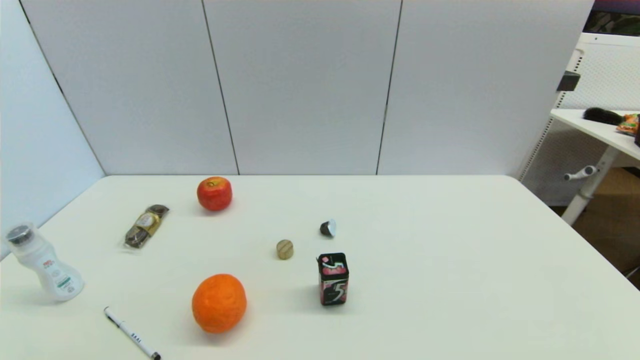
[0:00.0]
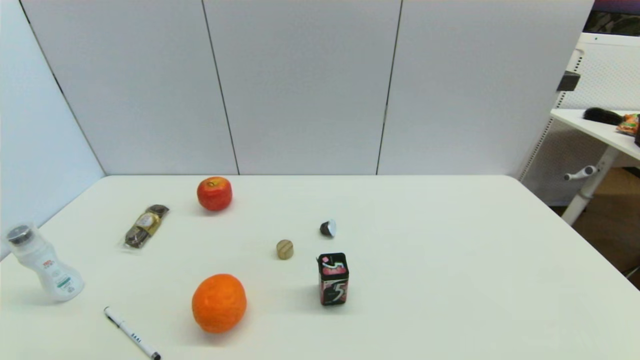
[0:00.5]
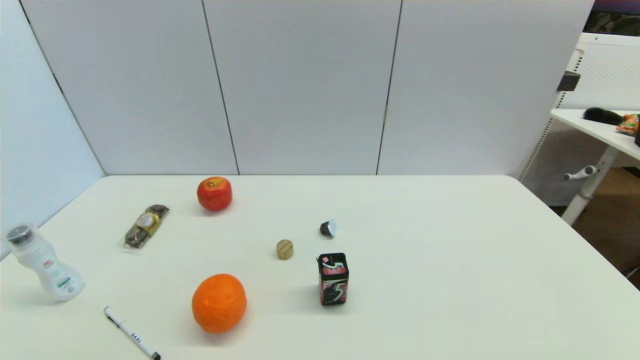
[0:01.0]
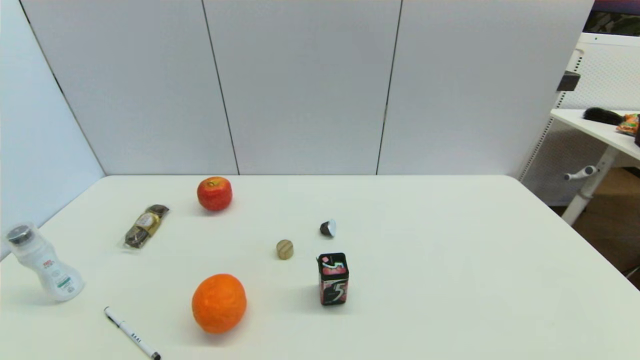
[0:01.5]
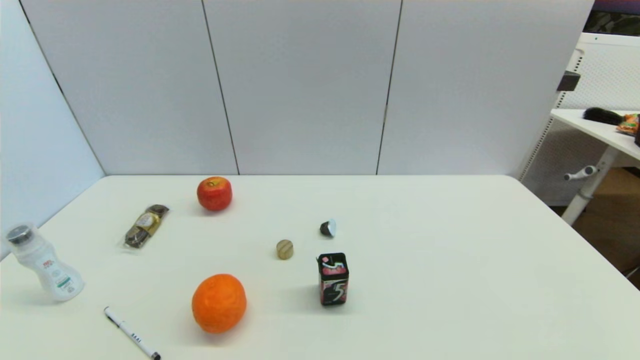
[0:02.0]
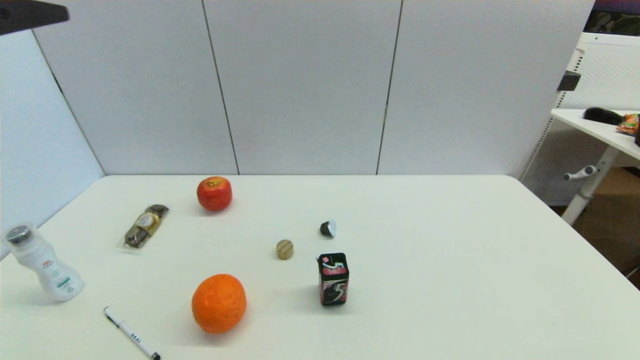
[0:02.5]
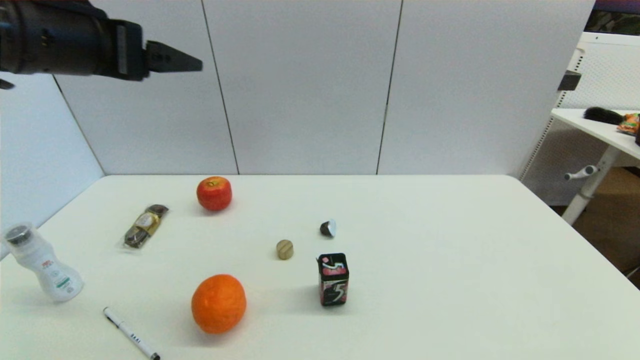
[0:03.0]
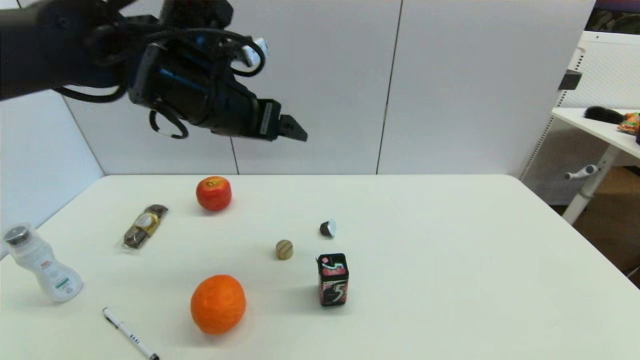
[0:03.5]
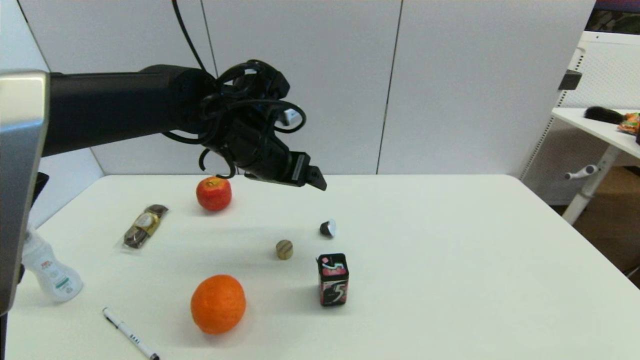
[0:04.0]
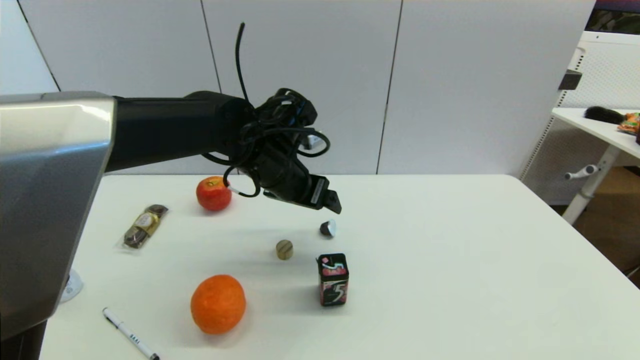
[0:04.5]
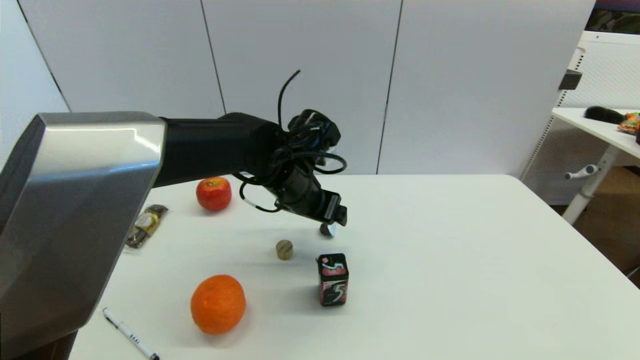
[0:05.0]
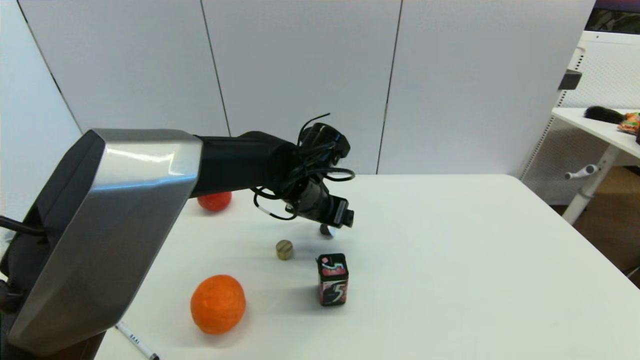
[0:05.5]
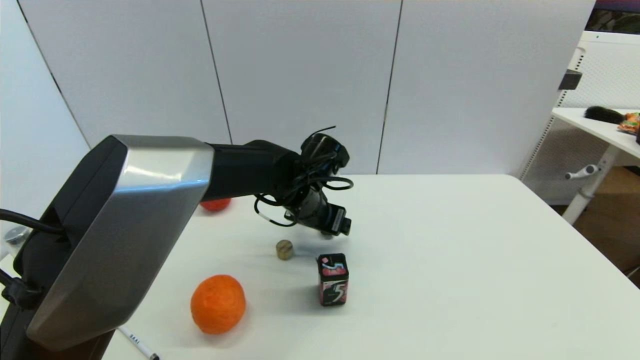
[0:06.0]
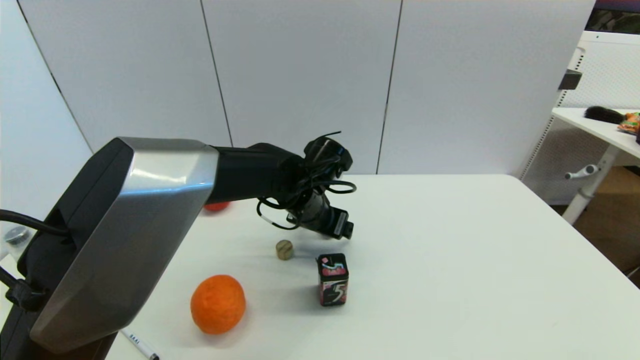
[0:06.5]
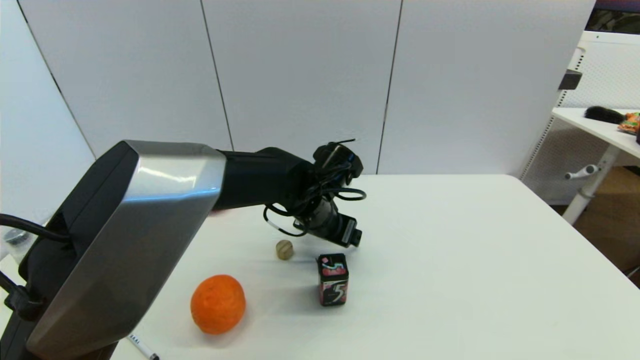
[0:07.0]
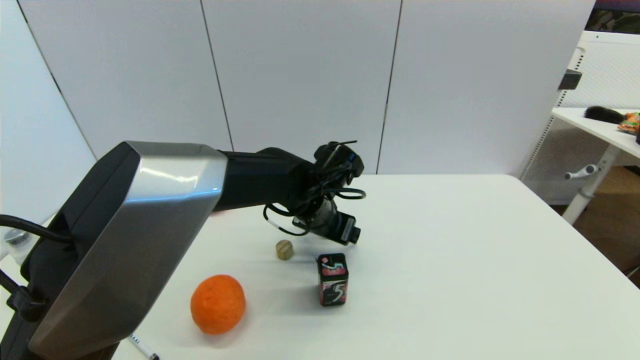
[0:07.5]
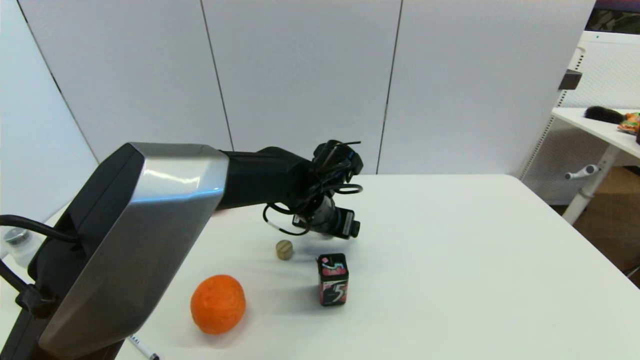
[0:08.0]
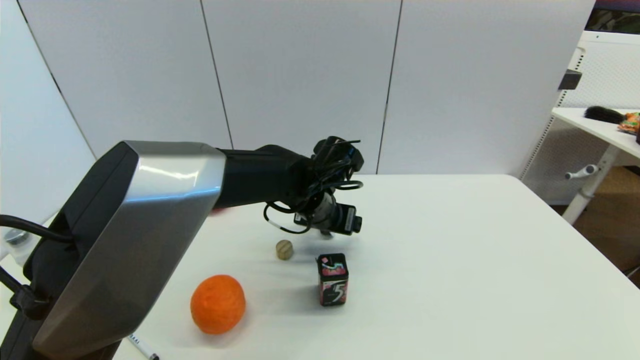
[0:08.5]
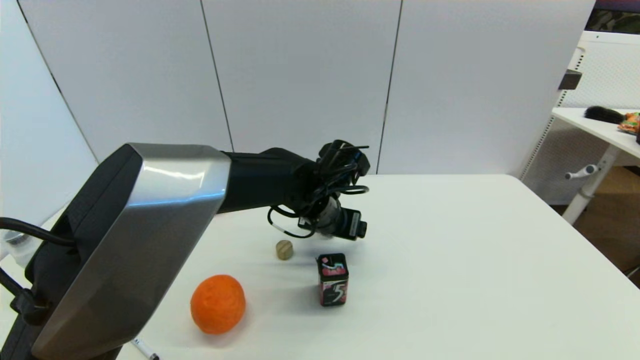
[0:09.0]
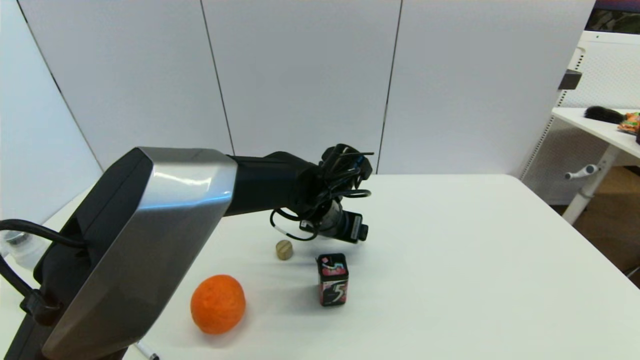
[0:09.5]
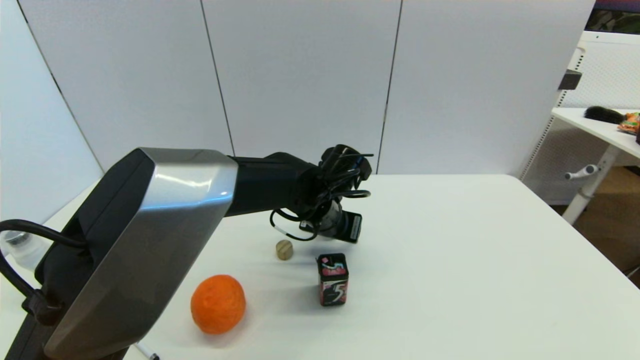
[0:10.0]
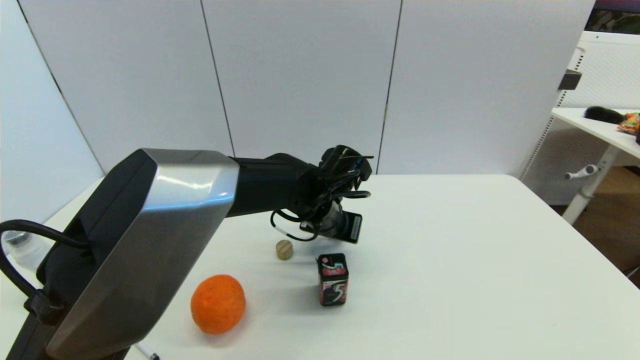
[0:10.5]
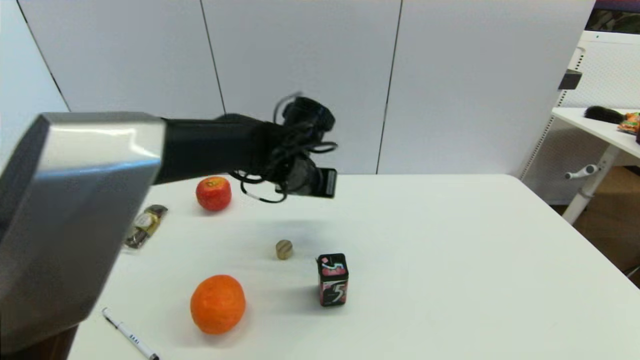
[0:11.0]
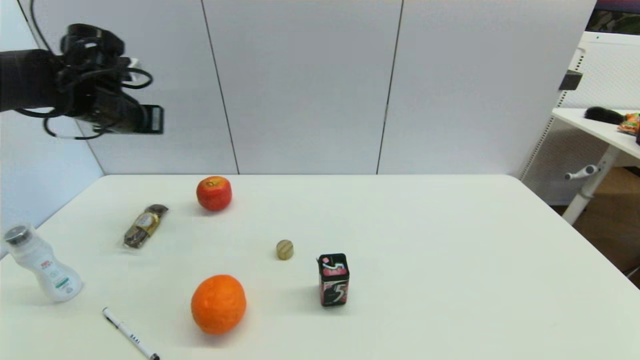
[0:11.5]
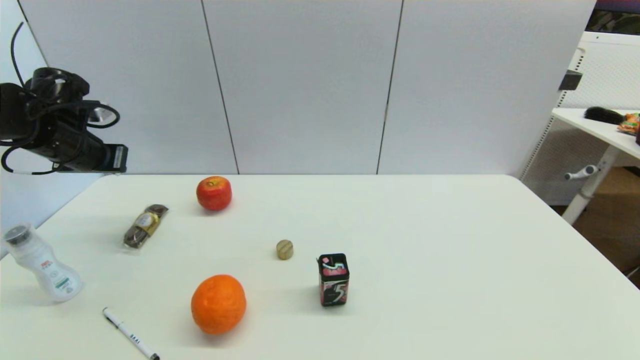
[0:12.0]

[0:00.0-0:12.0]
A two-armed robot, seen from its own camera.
Step, 0:01.5 to 0:10.5: Grasp the coffee capsule with left gripper.
0:02.0 to 0:04.0: The left gripper goes approximately 35 cm forward and to the right.
0:04.0 to 0:06.0: The left gripper moves downward and to the right, about 15 cm.
0:06.0 to 0:08.0: The grippers stay close to where they were, moving slightly.
0:08.0 to 0:10.0: The left gripper closes.
0:10.0 to 0:12.0: The left gripper moves to the left, approximately 40 cm, and closes up.

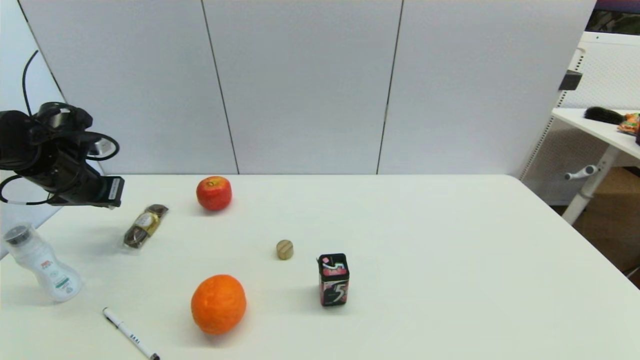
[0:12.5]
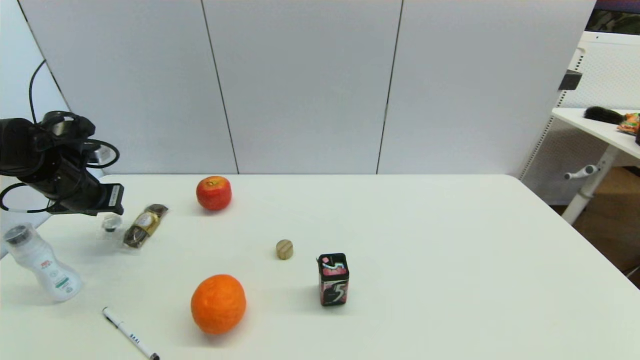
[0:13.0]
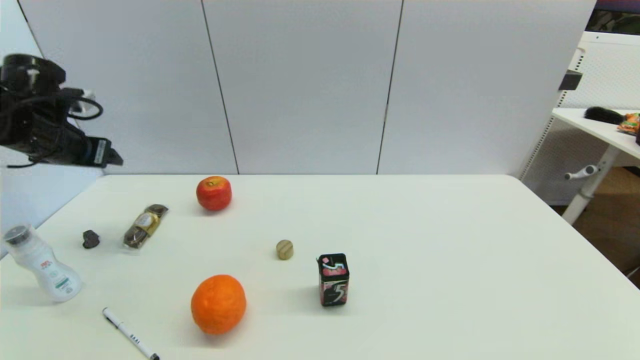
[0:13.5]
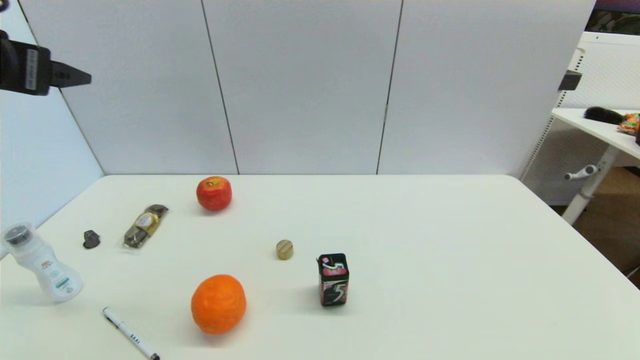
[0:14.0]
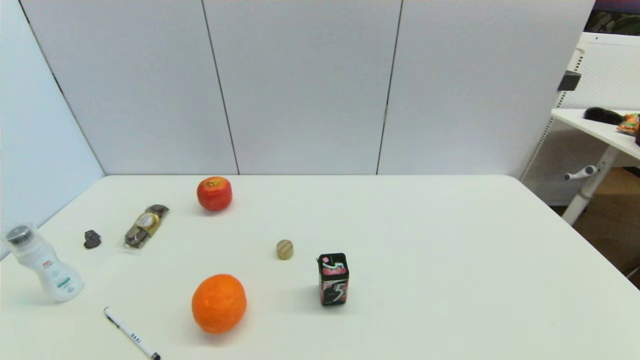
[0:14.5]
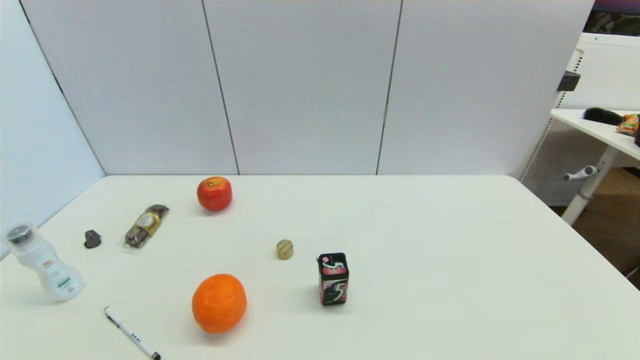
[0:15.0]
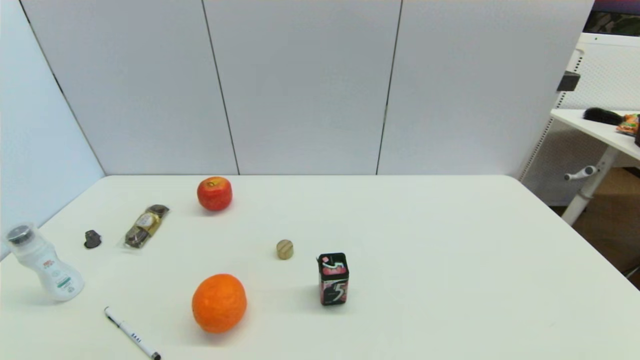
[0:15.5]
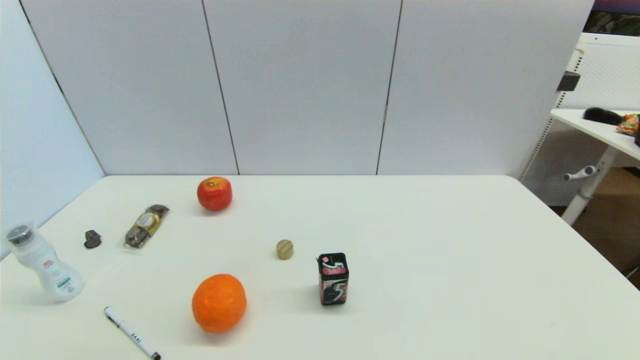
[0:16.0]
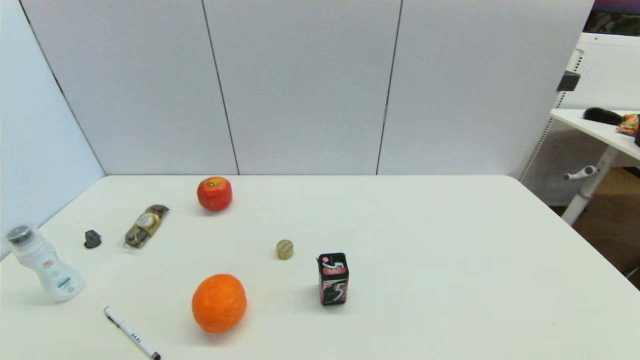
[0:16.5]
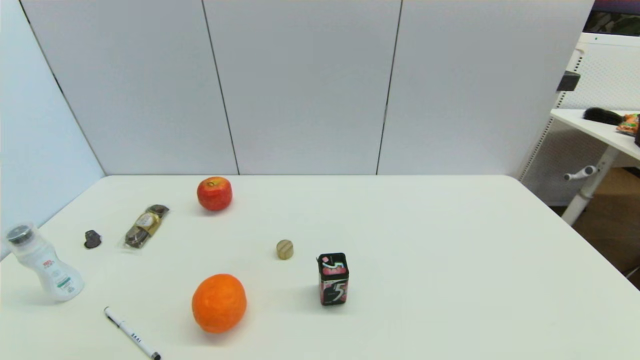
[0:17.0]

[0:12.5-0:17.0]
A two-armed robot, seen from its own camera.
0:12.5 to 0:14.5: The left gripper is displaced backward by approximately 35 cm, and opens.

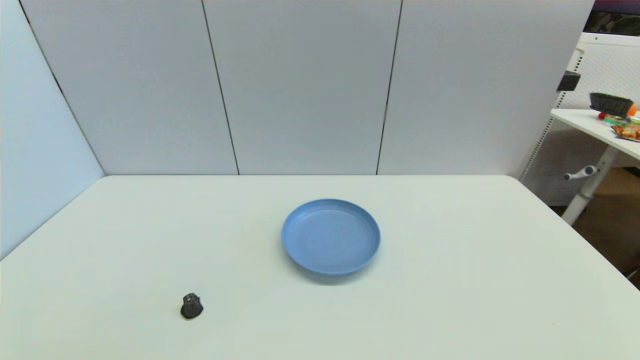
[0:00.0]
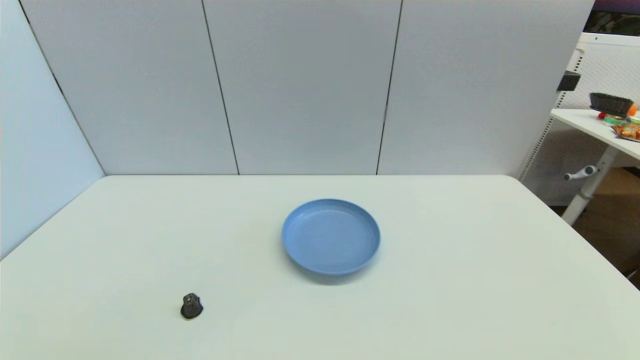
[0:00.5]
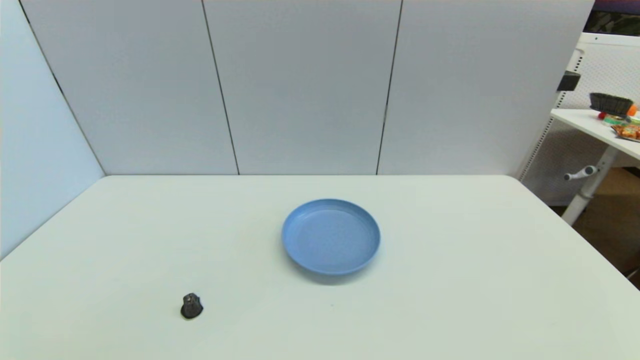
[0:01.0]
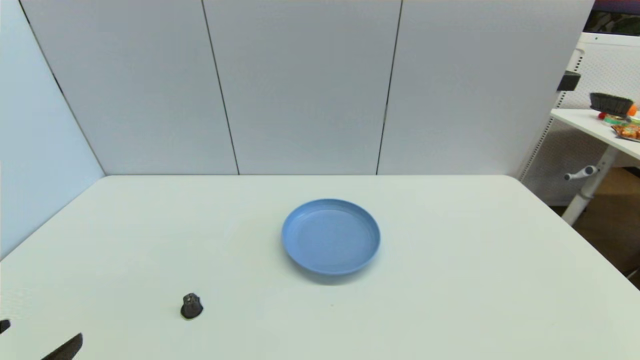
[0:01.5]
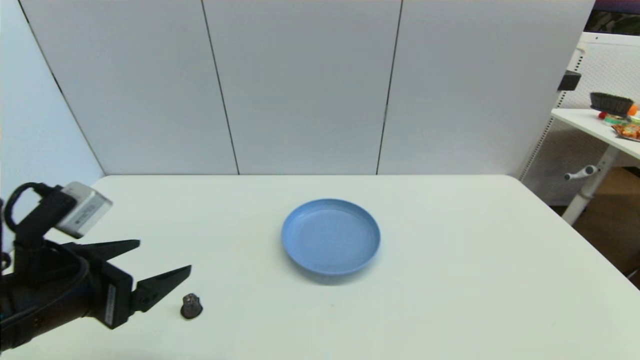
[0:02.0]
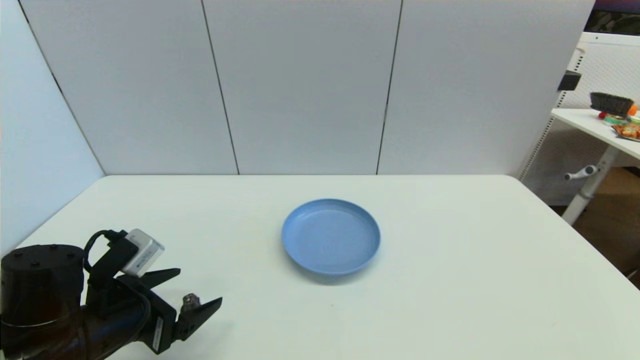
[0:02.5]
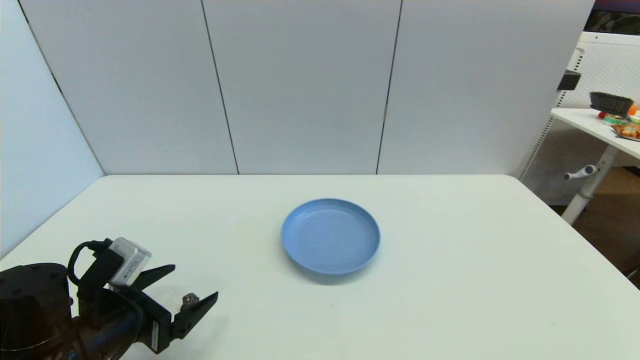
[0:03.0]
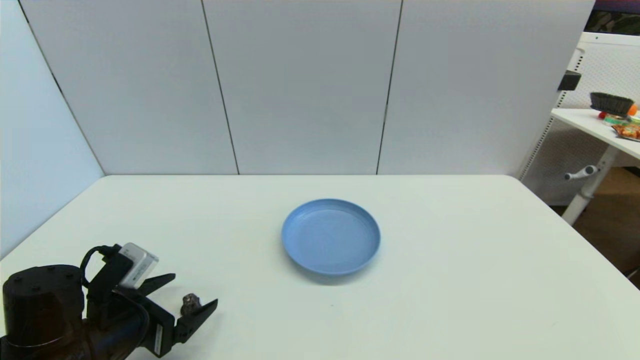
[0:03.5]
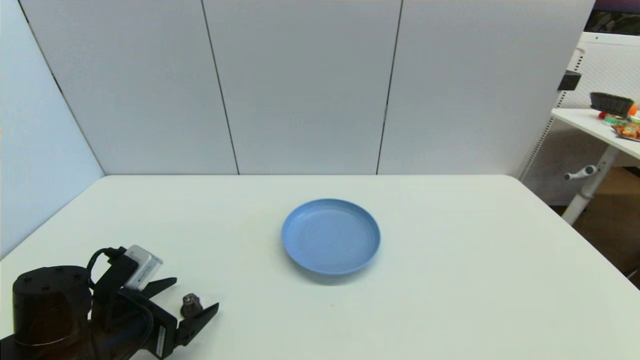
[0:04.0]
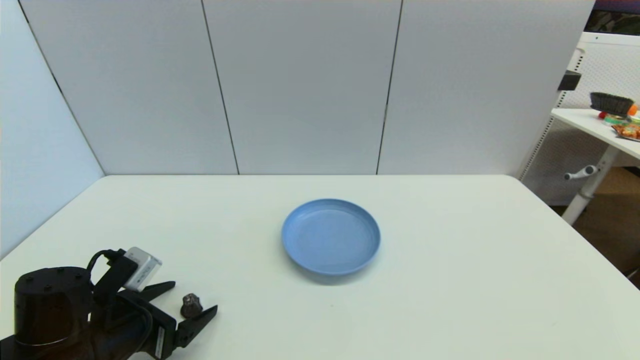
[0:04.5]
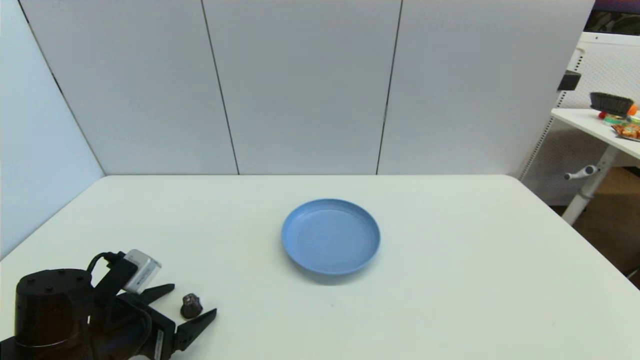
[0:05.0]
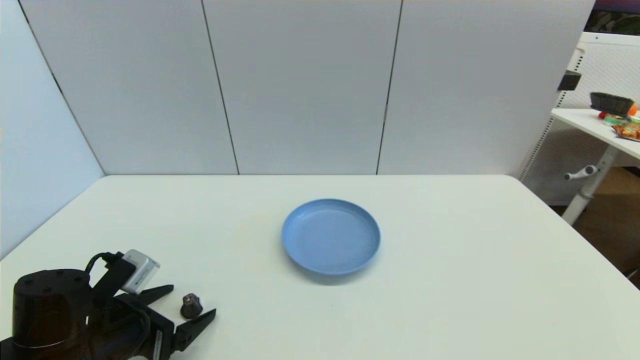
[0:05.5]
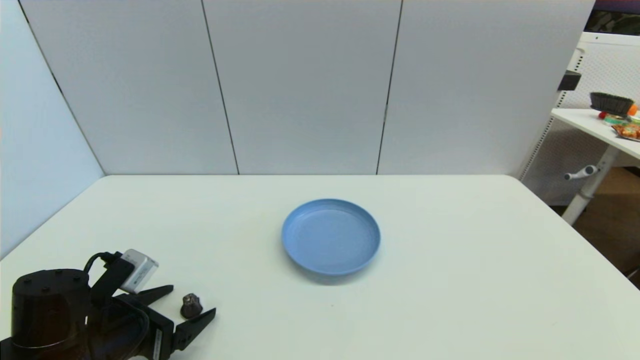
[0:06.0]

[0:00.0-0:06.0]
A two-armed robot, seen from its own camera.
0:00.0 to 0:02.0: The left gripper travels forward and upward by about 20 cm.
0:02.0 to 0:04.0: The left gripper goes roughly 10 cm downward.
0:04.0 to 0:06.0: Neither gripper changes place.
